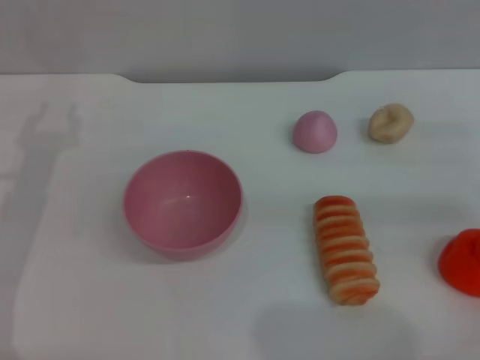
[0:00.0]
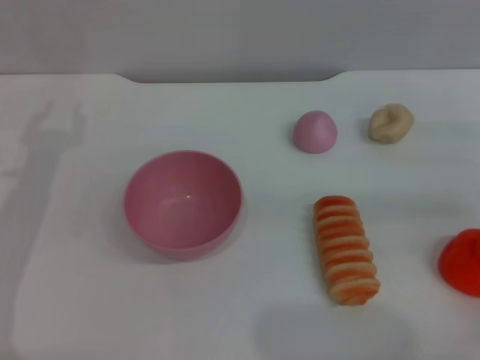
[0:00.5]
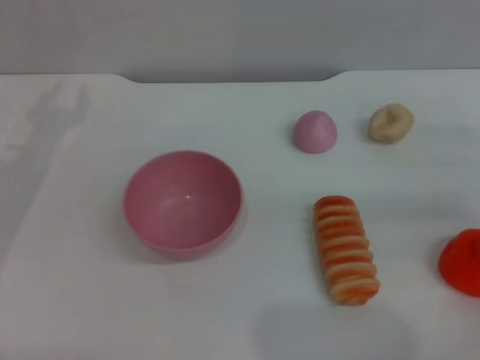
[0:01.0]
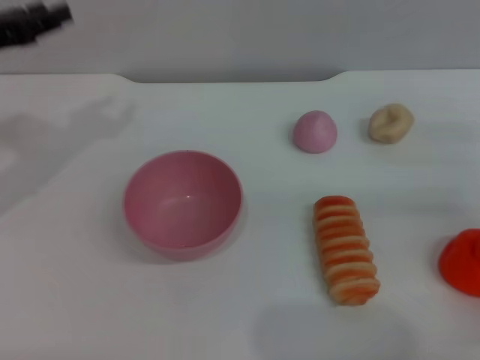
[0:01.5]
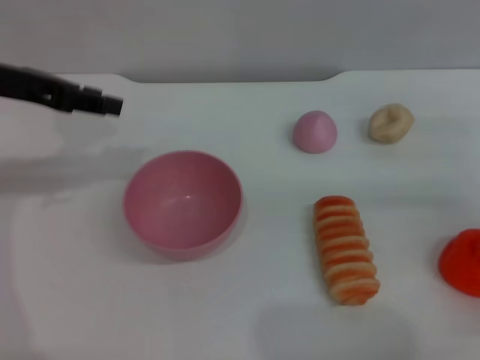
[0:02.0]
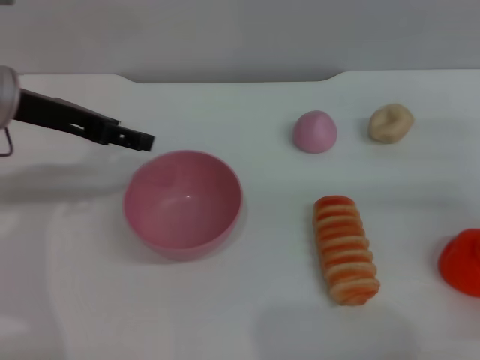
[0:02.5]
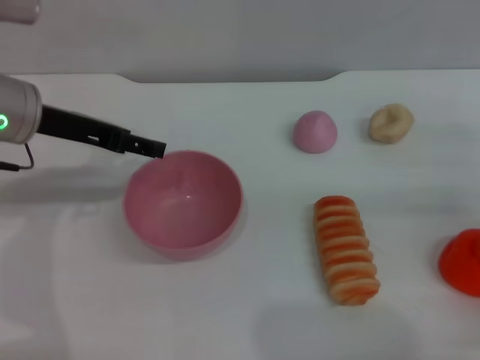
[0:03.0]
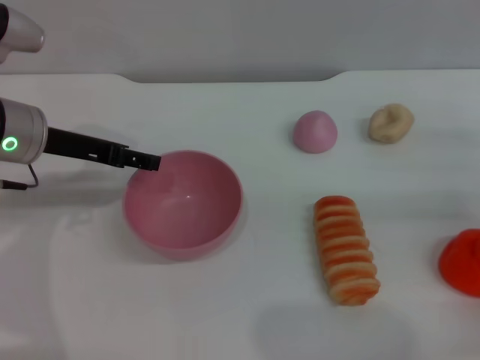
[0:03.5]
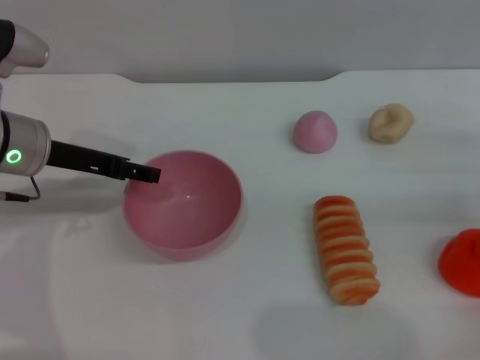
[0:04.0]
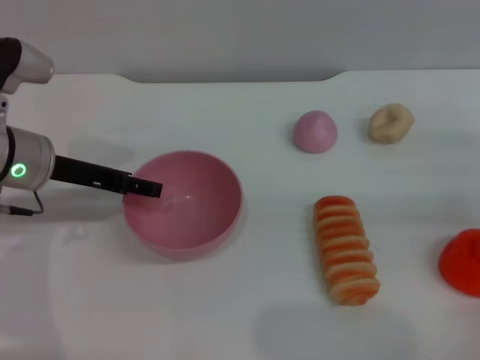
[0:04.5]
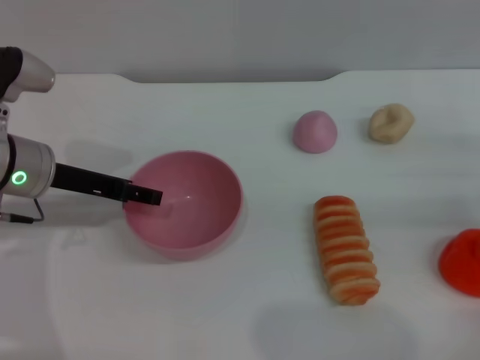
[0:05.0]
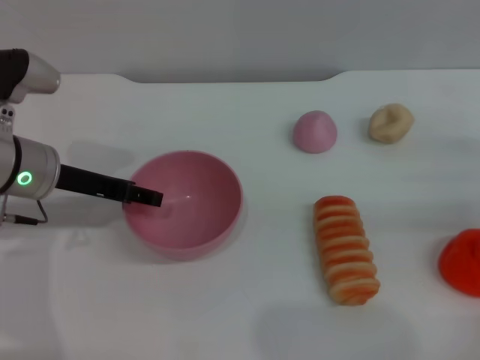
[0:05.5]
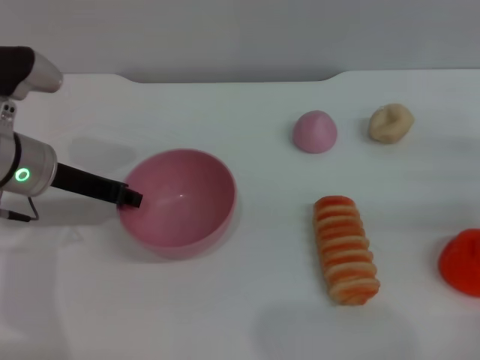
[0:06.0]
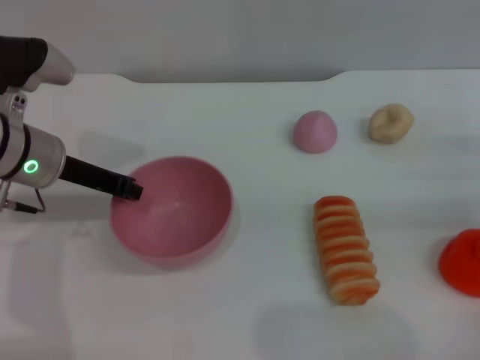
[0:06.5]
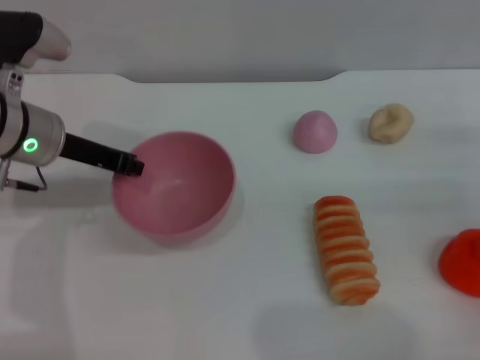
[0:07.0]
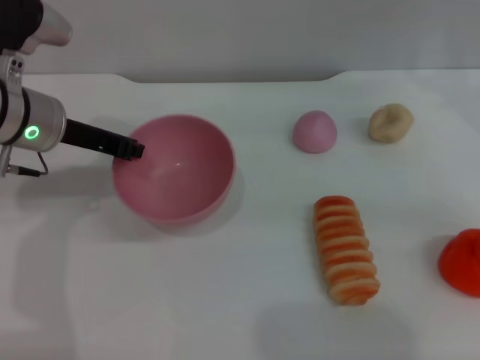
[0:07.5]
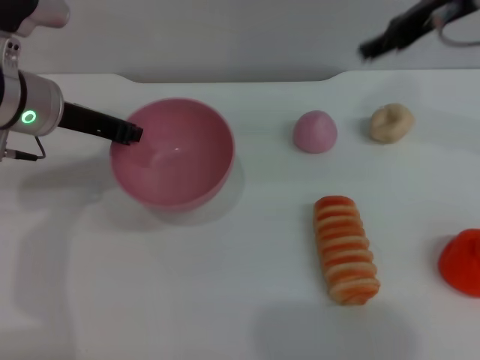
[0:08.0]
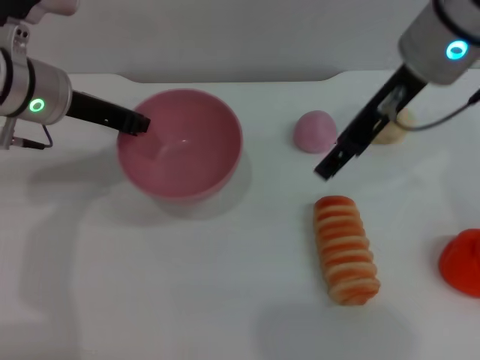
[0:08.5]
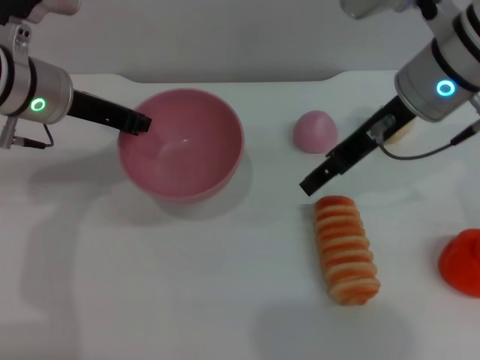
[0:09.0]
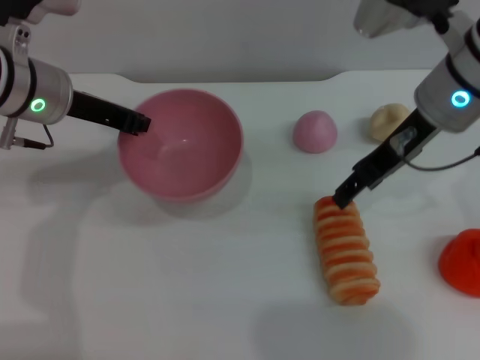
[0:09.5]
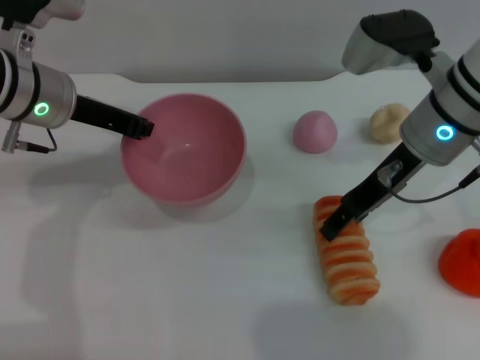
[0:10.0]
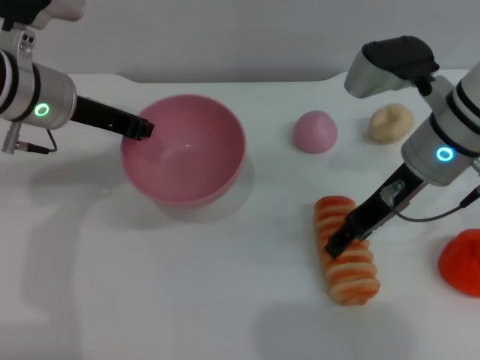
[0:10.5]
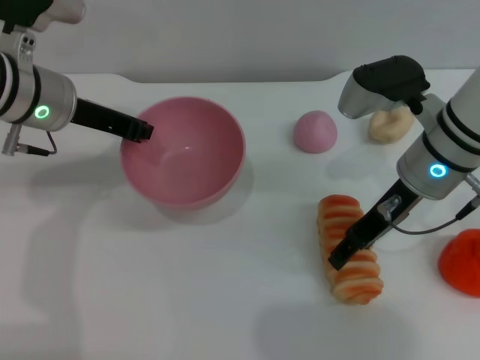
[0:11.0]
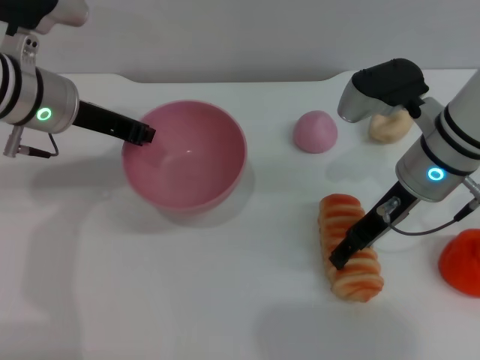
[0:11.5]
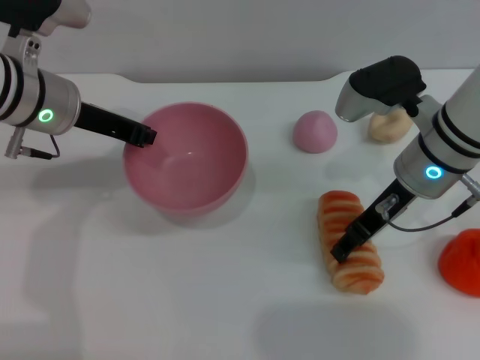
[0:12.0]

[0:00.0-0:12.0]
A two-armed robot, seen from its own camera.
Task of the whole recording: put the bread into the pink bowl and pour it out repeatedly.
Step, 0:00.0 to 0:08.5: Pick up the bowl with the left gripper.
0:00.0 to 0:02.0: The left gripper is displaced upward and forward by about 15 cm.
0:02.0 to 0:04.0: The left gripper goes some 10 cm downward.
0:04.0 to 0:06.0: The left gripper closes up.
0:06.0 to 0:08.0: The left gripper changes place by approximately 5 cm, and closes up. Meanwhile the right gripper shifts about 25 cm upward, to the left and forward.
0:08.0 to 0:10.0: The right gripper shifts about 10 cm downward.
0:10.0 to 0:12.0: There are only small adjustments of the grippers.

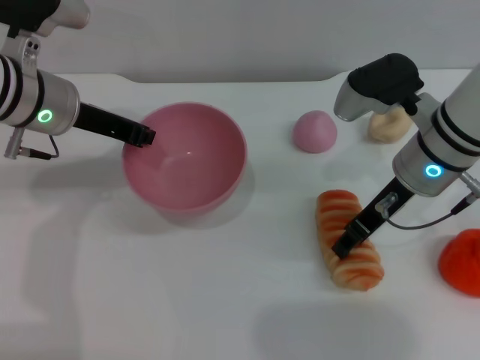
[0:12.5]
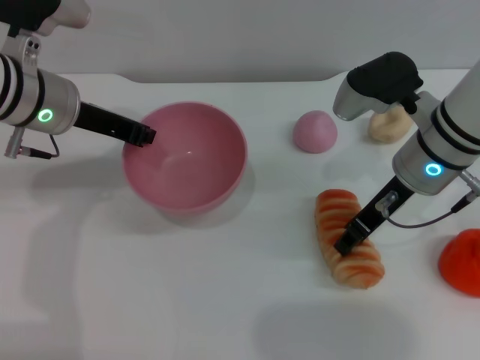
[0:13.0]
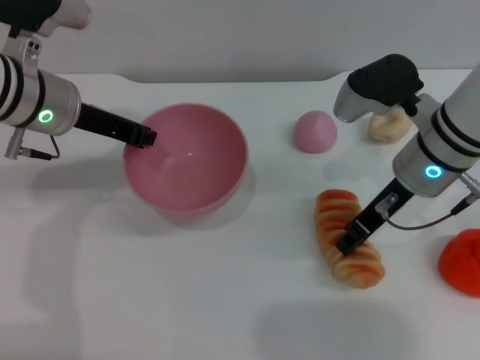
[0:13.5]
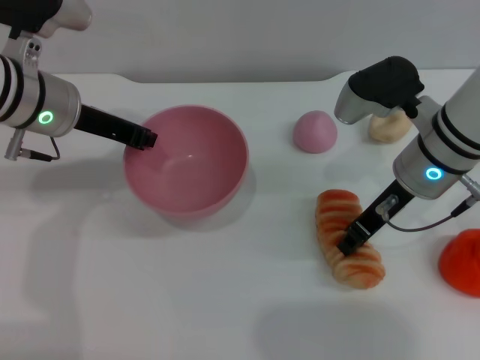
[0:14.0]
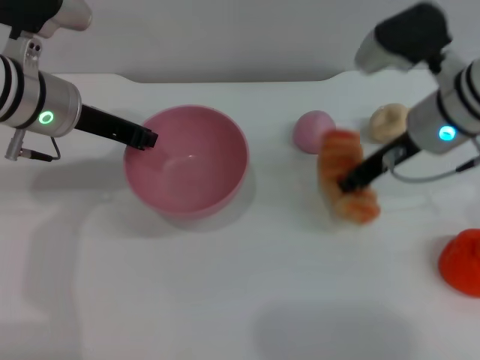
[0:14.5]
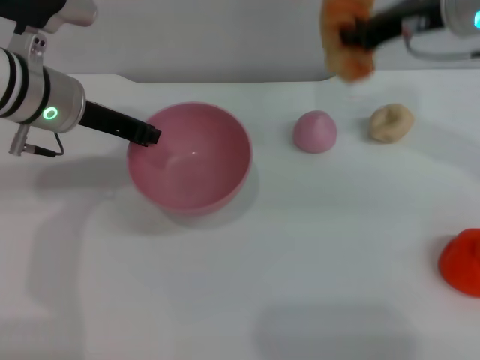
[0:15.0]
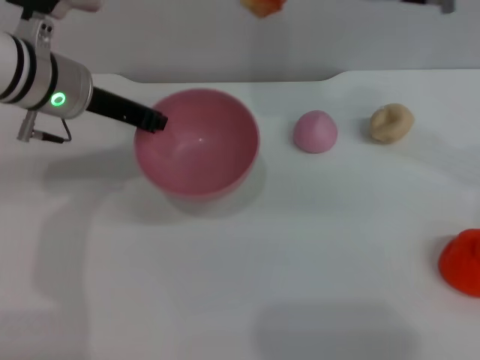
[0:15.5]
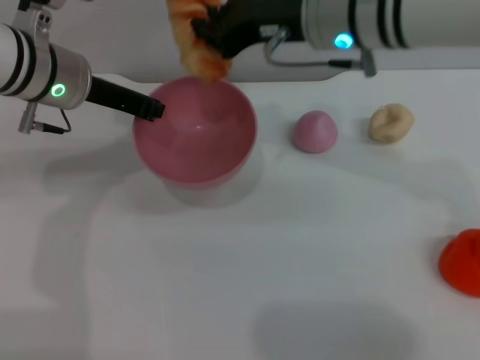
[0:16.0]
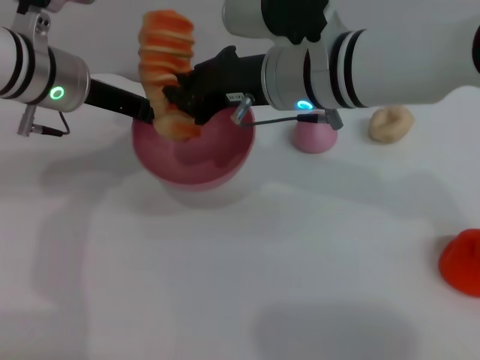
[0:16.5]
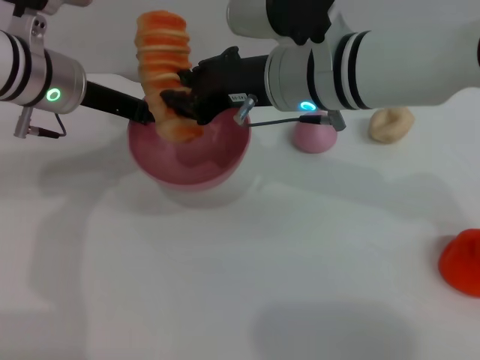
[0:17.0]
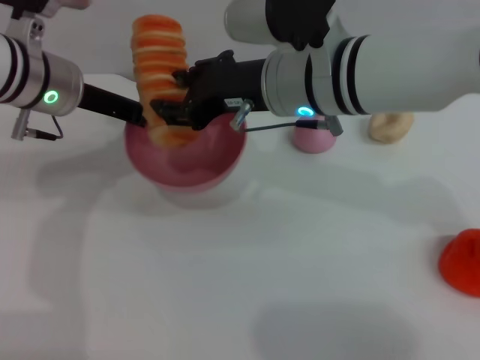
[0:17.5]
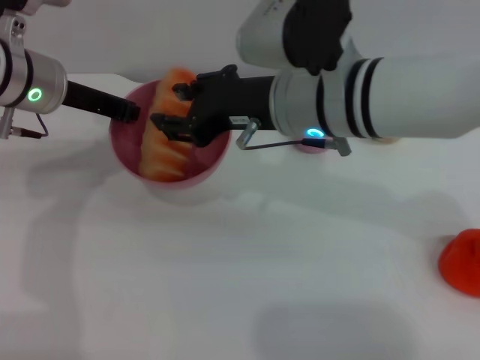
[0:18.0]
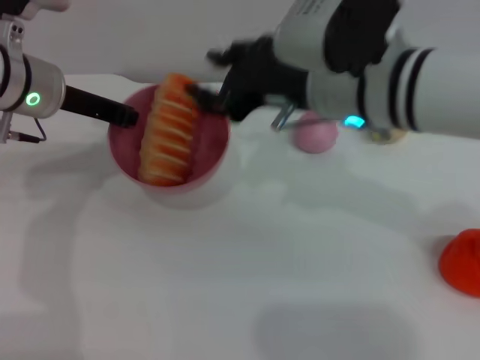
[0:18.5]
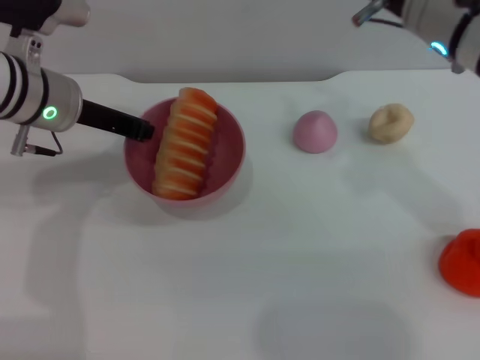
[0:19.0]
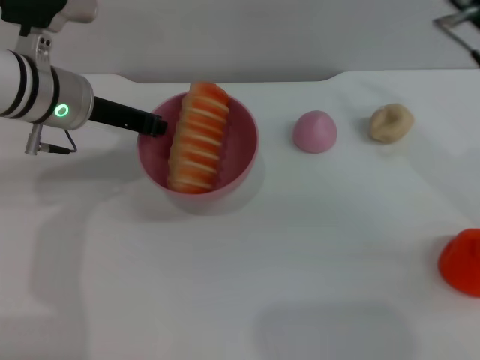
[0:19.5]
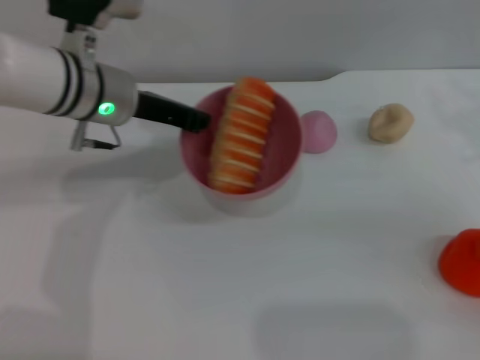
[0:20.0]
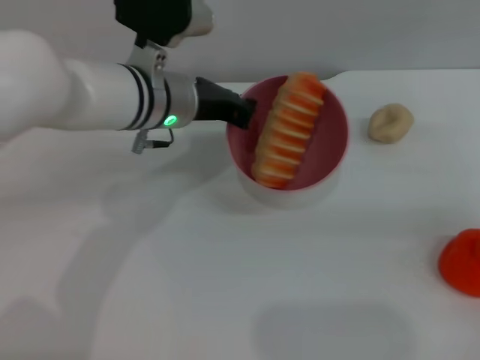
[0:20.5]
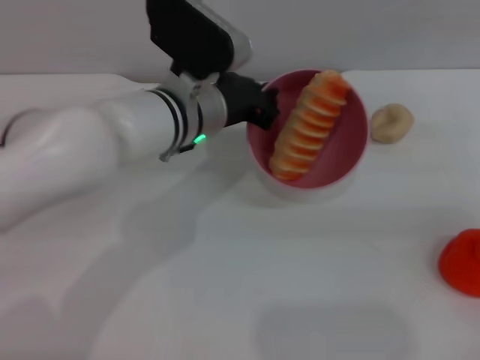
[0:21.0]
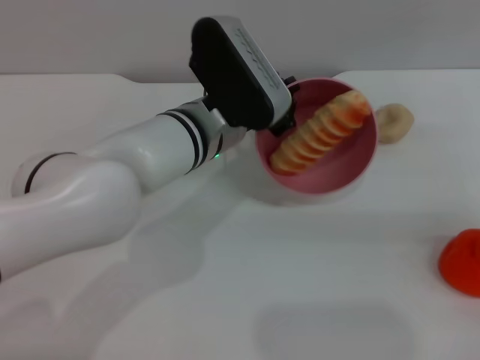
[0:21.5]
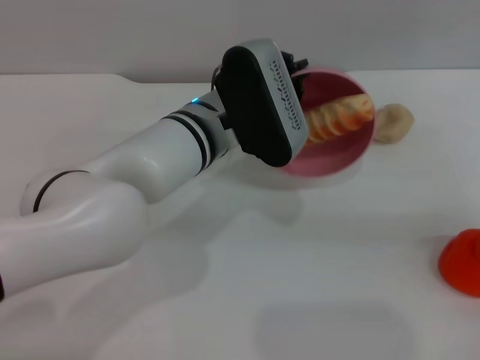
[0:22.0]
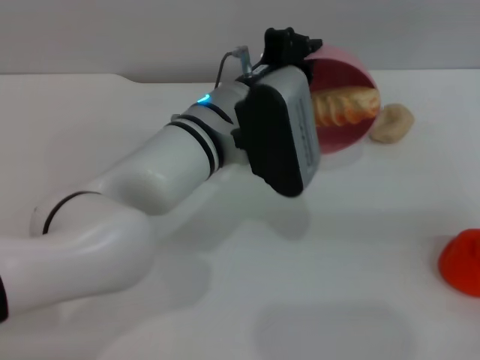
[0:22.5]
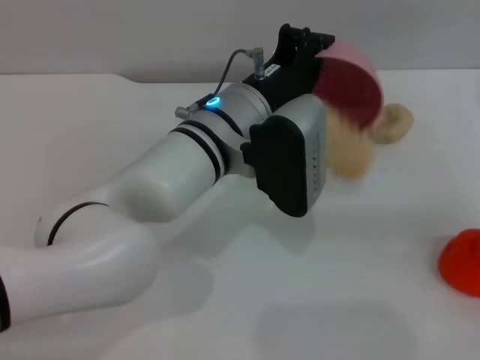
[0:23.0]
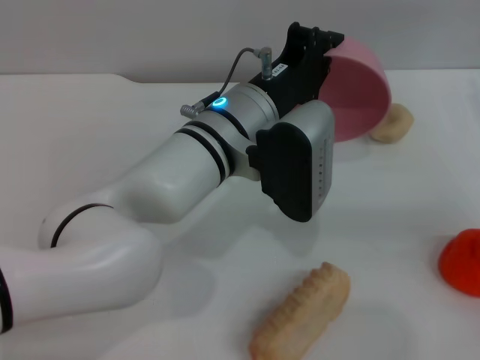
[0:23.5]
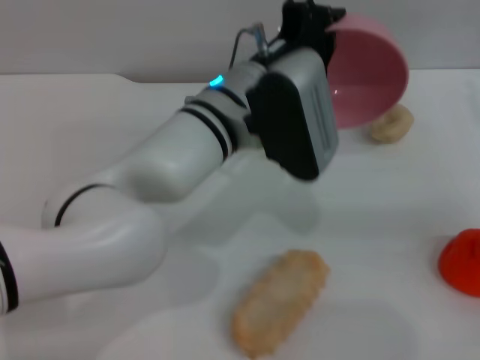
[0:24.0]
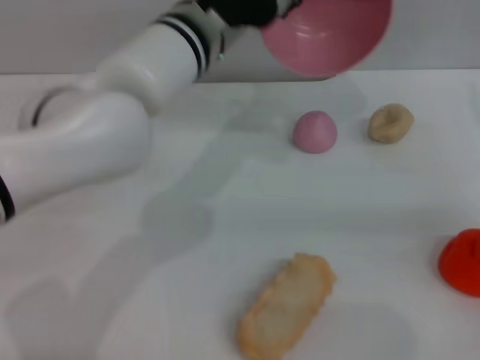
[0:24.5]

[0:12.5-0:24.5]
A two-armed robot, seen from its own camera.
Task of the whole recording: put the bread into the pink bowl and pour it out repeatedly.
Step, 0:12.5 to 0:14.5: Pick up the bread with the right gripper.
Step, 0:15.0 to 0:18.5: Place the bread into the bowl.
Step, 0:19.0 to 0:23.5: Pour the bread out of the bowl.
0:12.5 to 0:14.5: The right gripper closes its fingers.
0:14.5 to 0:16.5: The right gripper travels to the left by about 15 cm.
0:16.5 to 0:18.5: The right gripper ends up approximately 5 cm from where it was, and opens.
0:18.5 to 0:20.5: The left gripper heads to the right, covering some 10 cm. Meanwhile the right gripper goes approximately 30 cm to the right.
0:20.5 to 0:22.5: The left gripper shifts about 10 cm to the right and backward.
0:22.5 to 0:24.5: The left gripper travels forward and upward by approximately 10 cm.

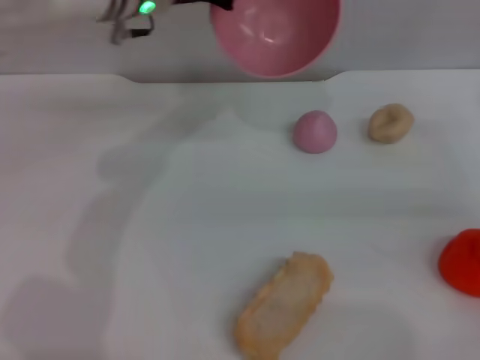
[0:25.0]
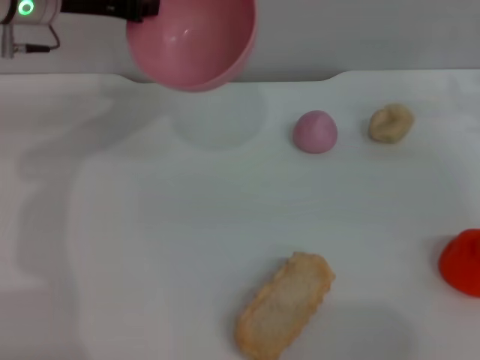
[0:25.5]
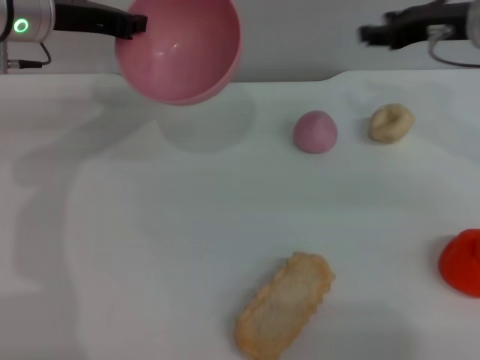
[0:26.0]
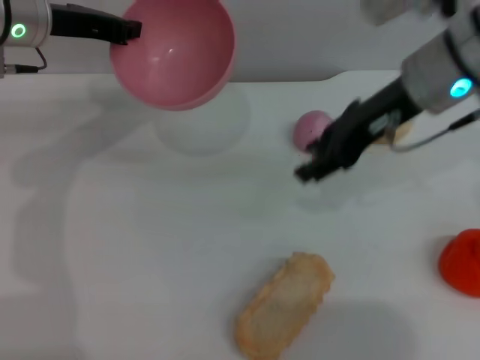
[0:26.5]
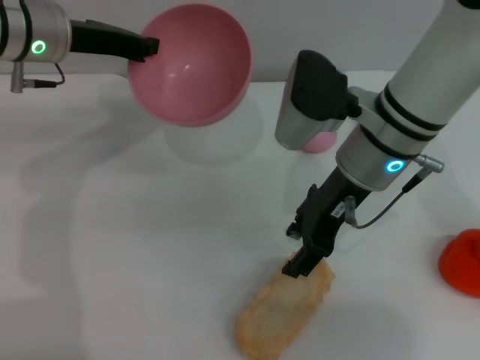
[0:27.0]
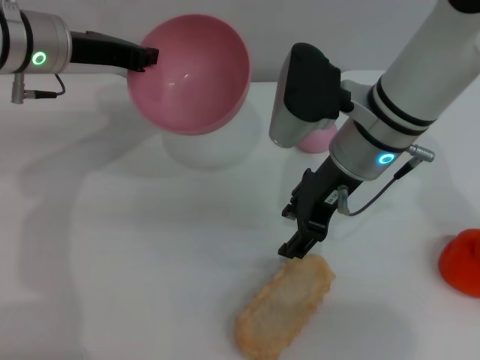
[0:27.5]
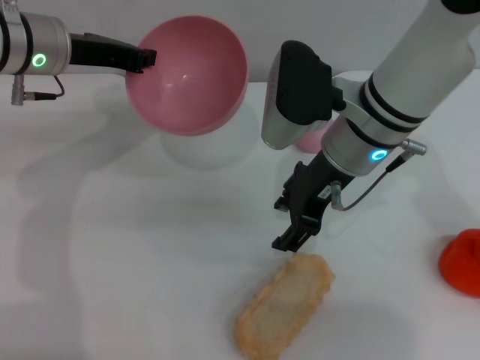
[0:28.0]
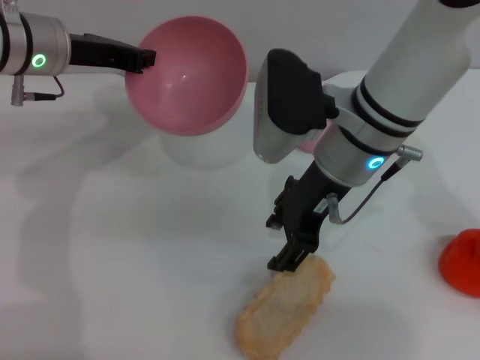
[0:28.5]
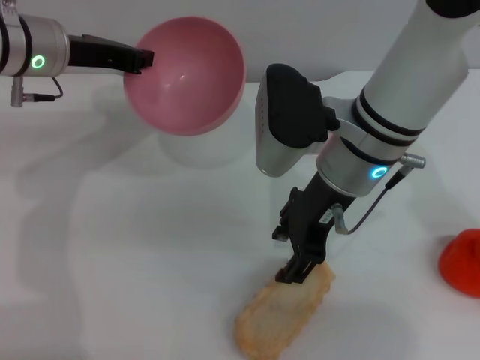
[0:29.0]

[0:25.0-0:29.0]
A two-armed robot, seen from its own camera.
Task of the whole recording: put the bread into the pink bowl and pour it out repeatedly.
0:25.0 to 0:27.0: The left gripper goes some 10 cm to the left. The right gripper goes about 25 cm to the left.
0:27.0 to 0:29.0: There are only small adjustments of the grippers.
